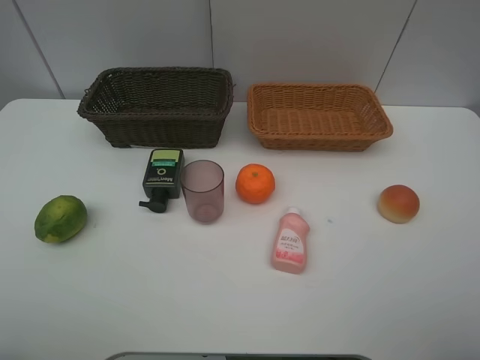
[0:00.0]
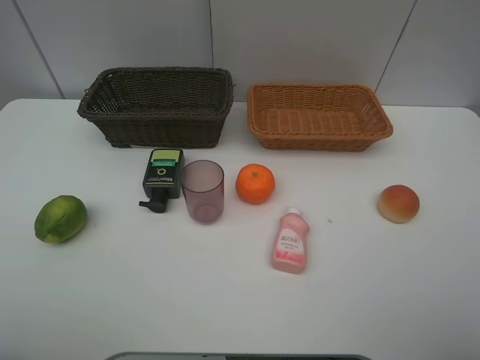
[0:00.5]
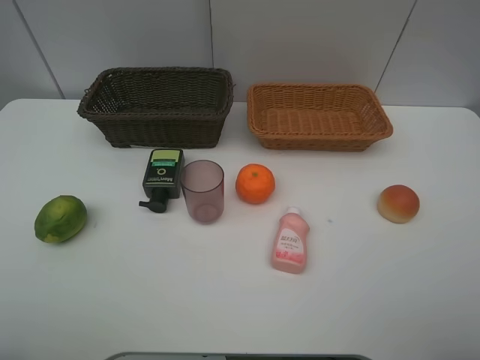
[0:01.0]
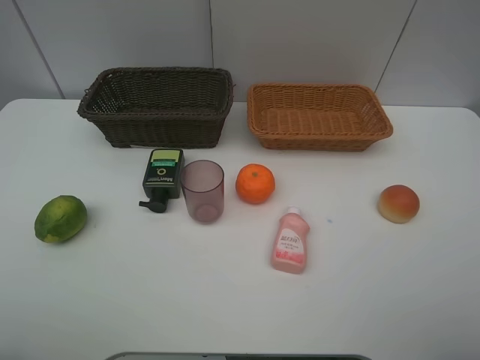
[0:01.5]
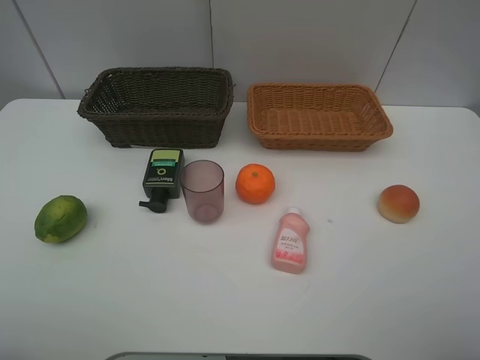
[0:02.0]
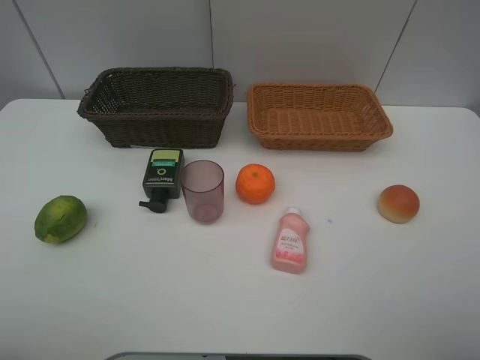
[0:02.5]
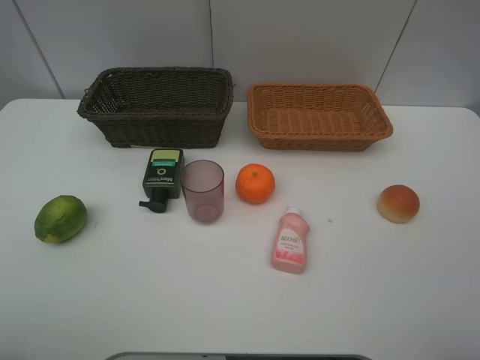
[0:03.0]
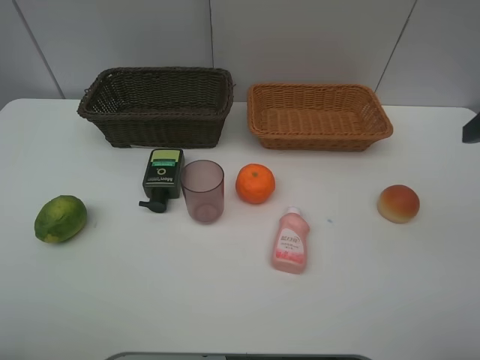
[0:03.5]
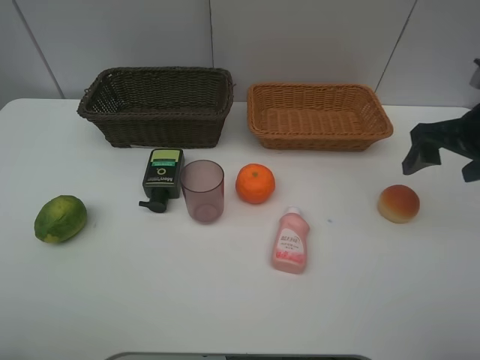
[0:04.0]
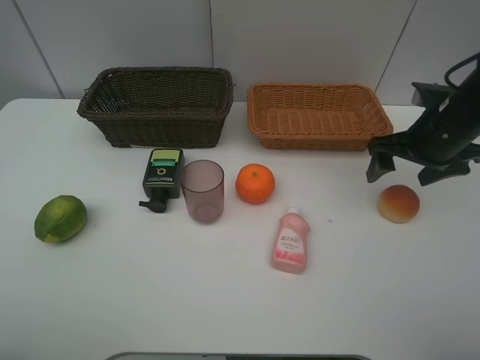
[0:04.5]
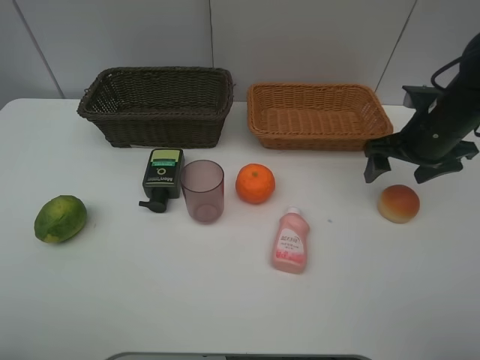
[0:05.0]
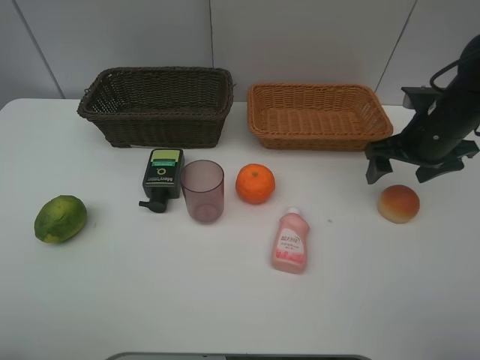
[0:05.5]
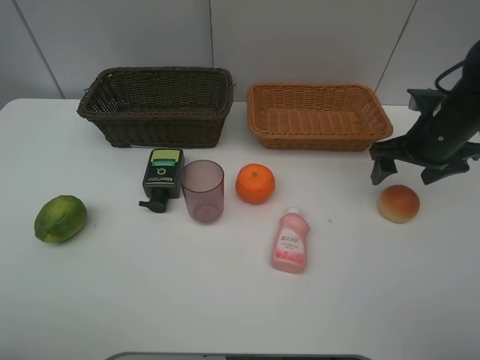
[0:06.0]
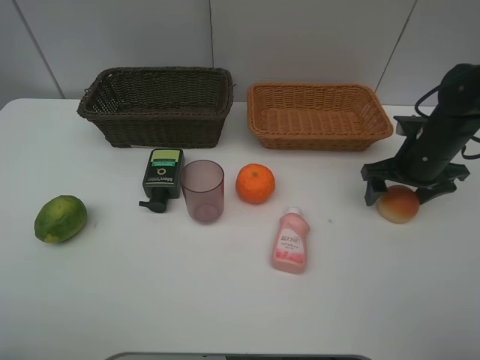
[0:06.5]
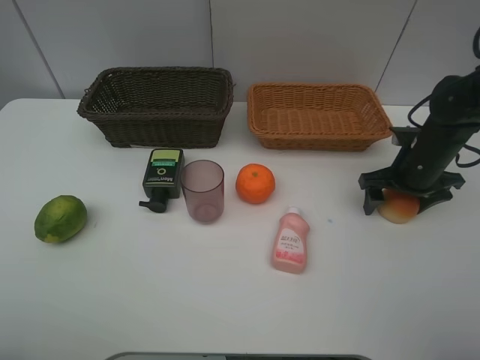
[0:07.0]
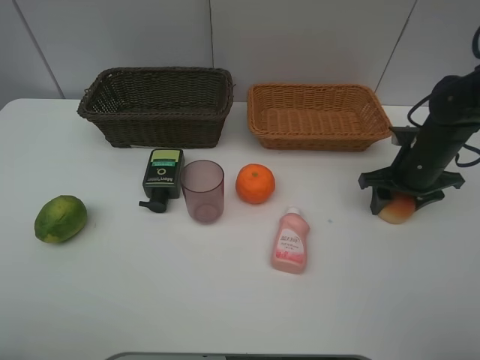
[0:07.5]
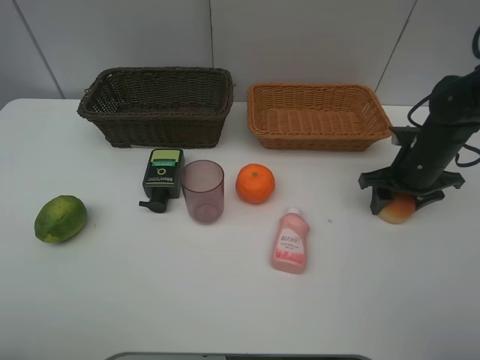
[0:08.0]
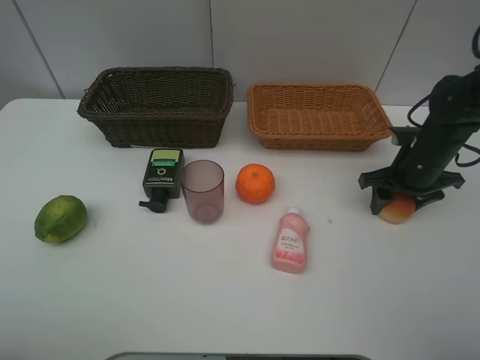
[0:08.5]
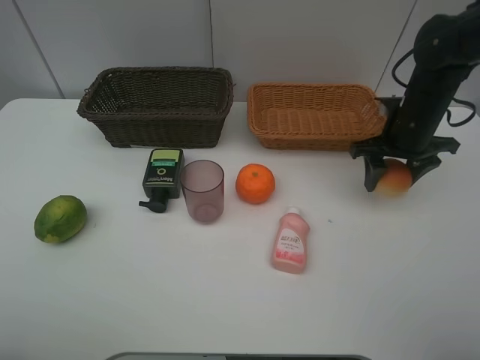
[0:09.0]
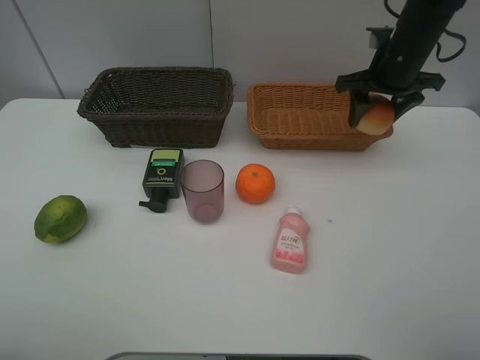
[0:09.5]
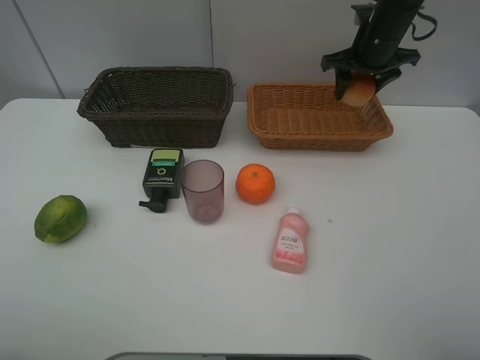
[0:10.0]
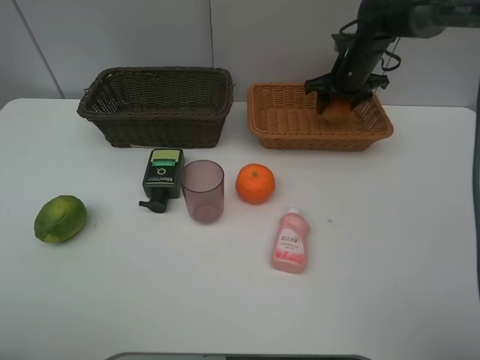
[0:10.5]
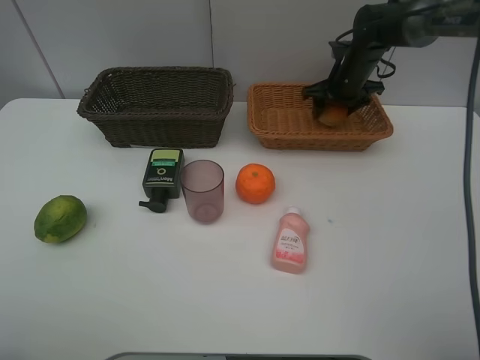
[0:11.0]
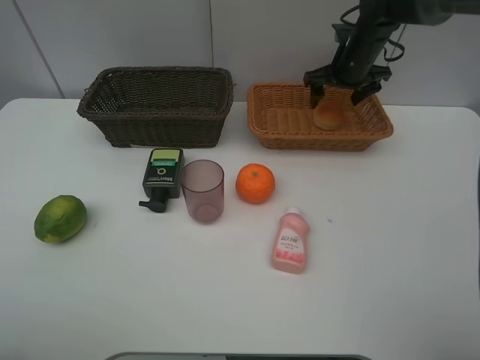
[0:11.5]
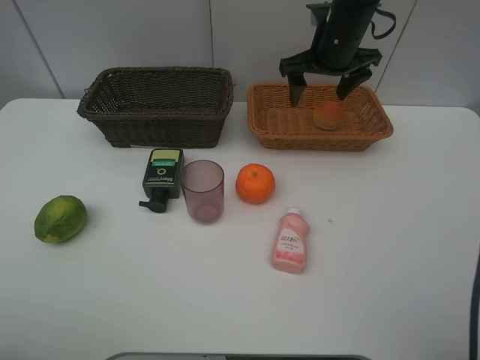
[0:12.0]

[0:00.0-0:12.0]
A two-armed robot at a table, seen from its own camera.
Task of the whole recording: place multiple objects separately in different baskets.
0:00.0 to 0:02.0: Neither gripper changes place.
0:02.0 to 0:04.0: The right gripper goes roughly 25 cm forward.
0:04.0 to 0:06.0: The right gripper is displaced forward and downward by some 10 cm.
0:06.0 to 0:08.0: The right gripper moves downward, approximately 5 cm, and closes its fingers.
0:08.0 to 0:10.0: The right gripper heads forward, upward and to the left, covering some 20 cm.
0:10.0 to 0:12.0: The right gripper goes approximately 10 cm to the left, reaches approximately 10 cm downward, then returns, and opens its fingers.

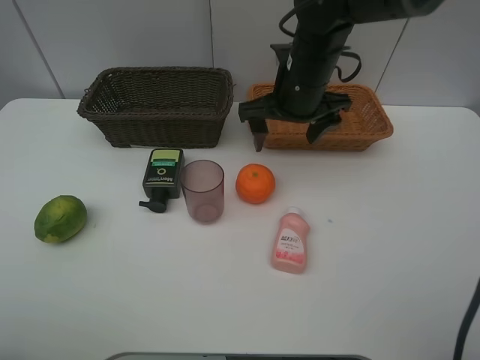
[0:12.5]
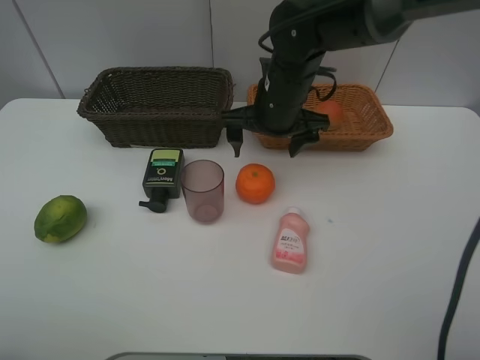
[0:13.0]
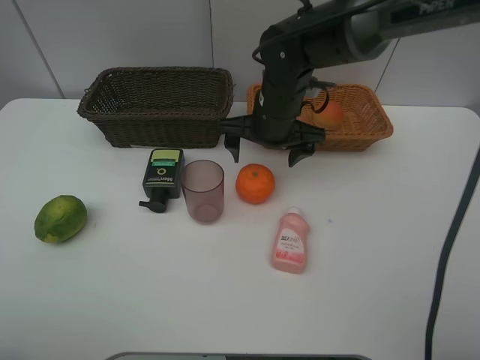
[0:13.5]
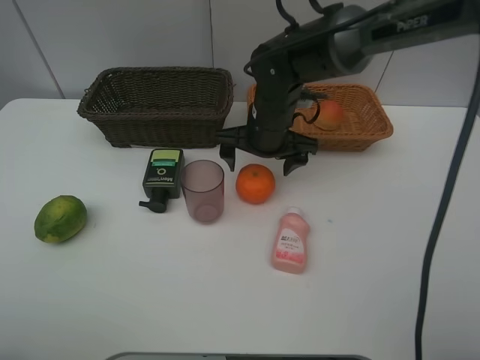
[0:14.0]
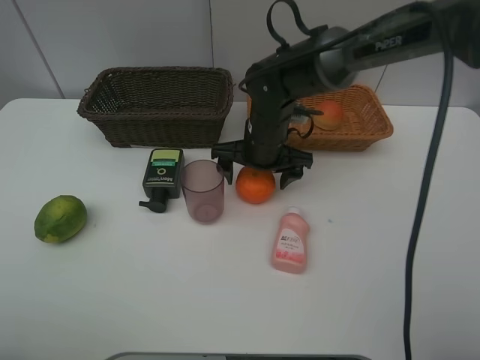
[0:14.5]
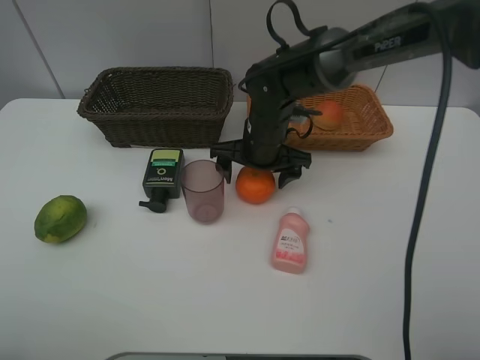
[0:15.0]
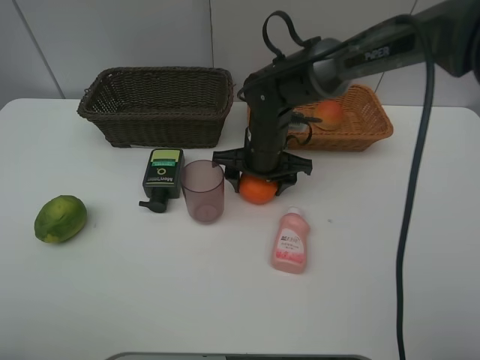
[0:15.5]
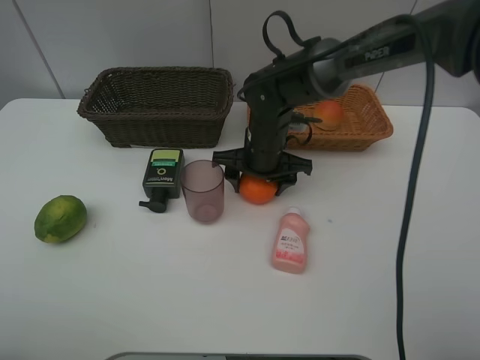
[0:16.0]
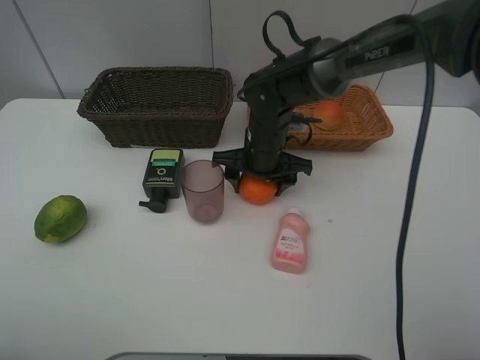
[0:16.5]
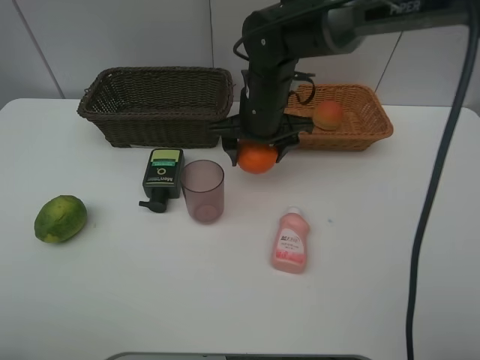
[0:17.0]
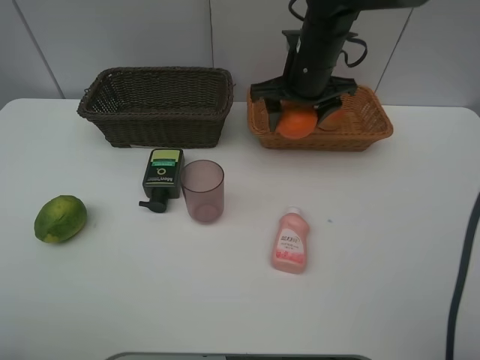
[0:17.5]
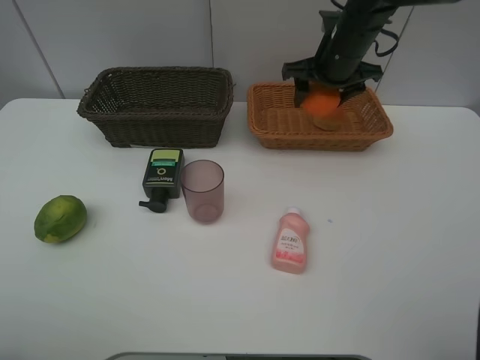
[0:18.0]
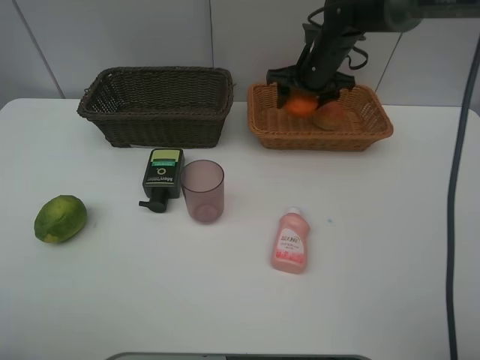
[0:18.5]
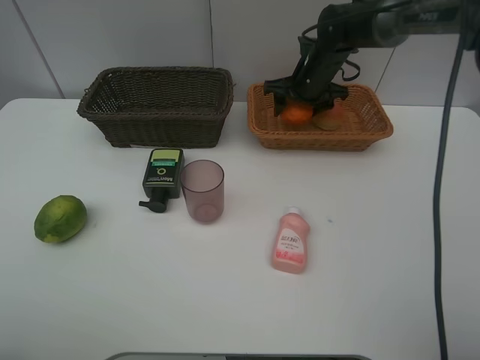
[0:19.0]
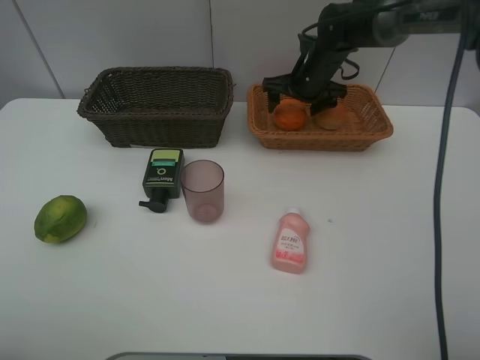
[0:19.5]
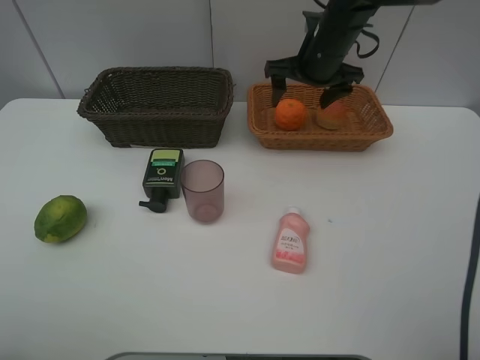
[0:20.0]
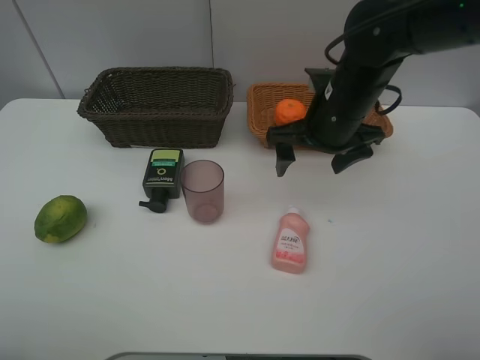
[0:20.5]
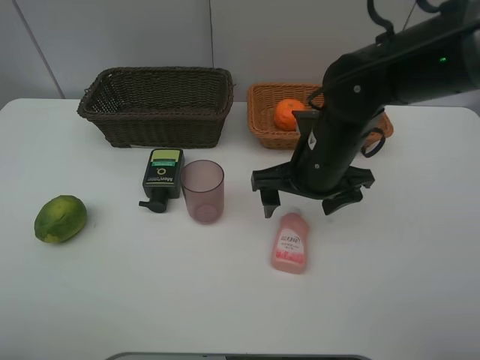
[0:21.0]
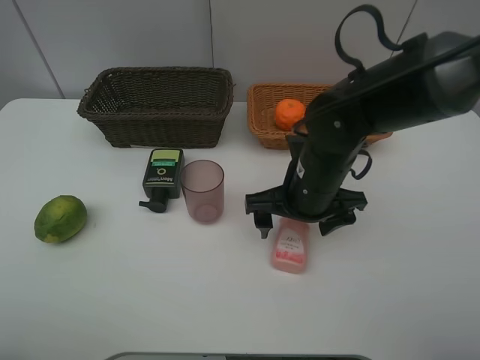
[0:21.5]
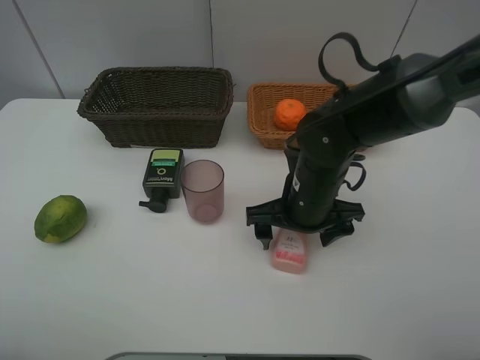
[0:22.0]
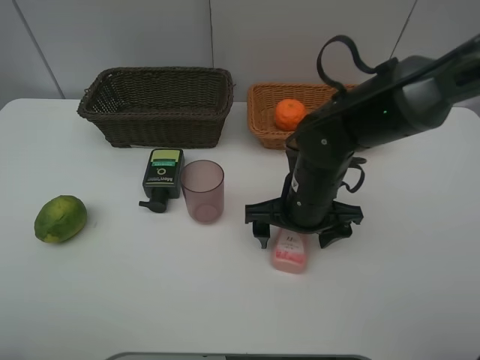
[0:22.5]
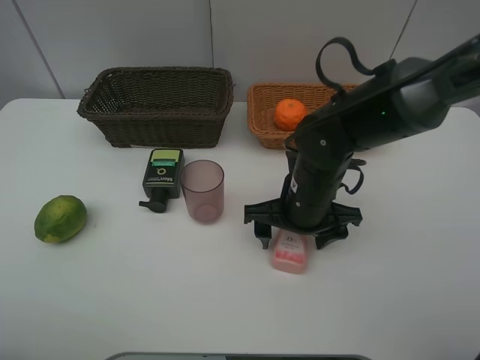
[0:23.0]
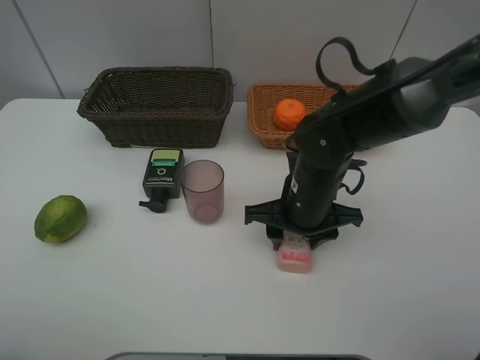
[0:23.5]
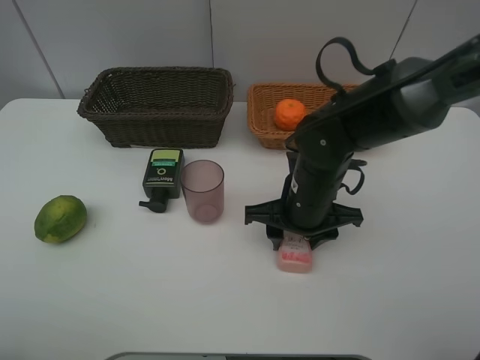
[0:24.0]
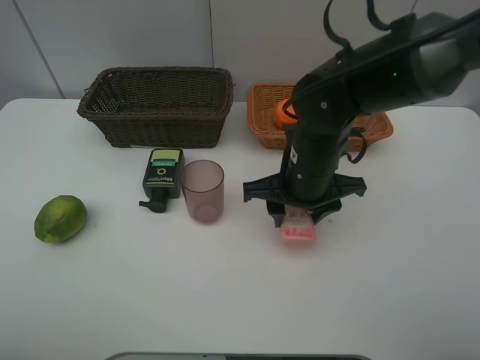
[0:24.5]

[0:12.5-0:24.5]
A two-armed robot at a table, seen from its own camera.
Task of the whole recording: place multiple objects separately in different baskets.
0:12.5 to 0:14.5: The right gripper heads downward, covering about 10 cm.
0:14.5 to 0:16.5: The right gripper closes its fingers.
0:16.5 to 0:18.5: The right gripper shifts approximately 20 cm forward, to the right and upward.
0:18.5 to 0:20.5: The right gripper shifts some 15 cm backward, and opens its fingers.
0:20.5 to 0:22.5: The right gripper is displaced downward and backward by some 10 cm.
0:22.5 to 0:24.5: The right gripper closes up.

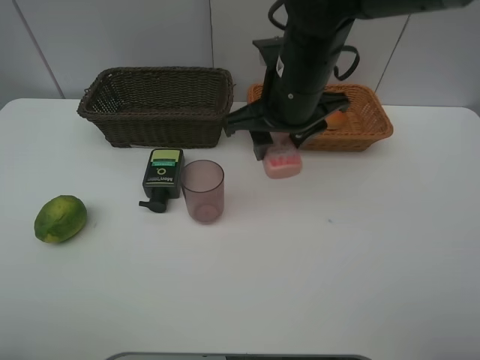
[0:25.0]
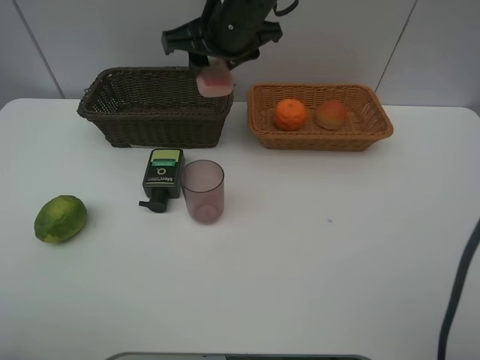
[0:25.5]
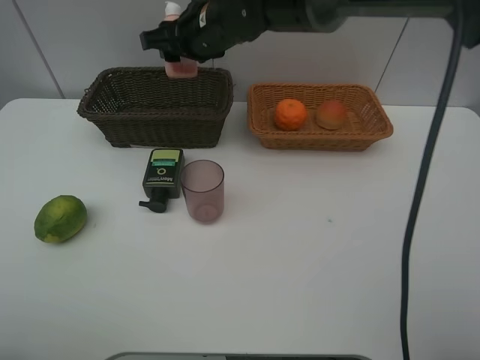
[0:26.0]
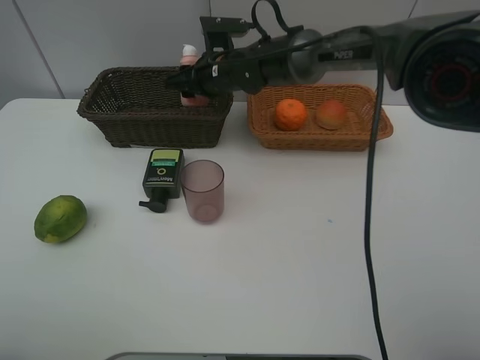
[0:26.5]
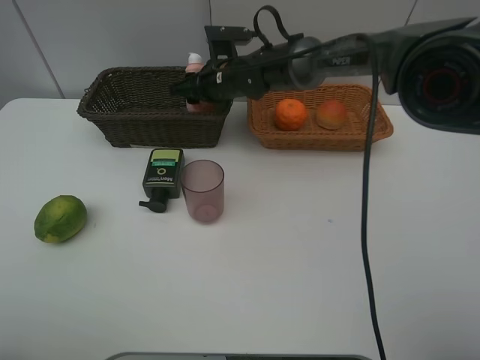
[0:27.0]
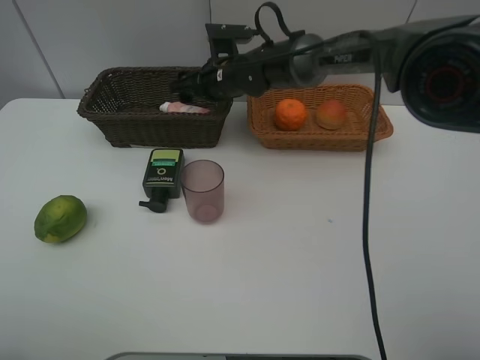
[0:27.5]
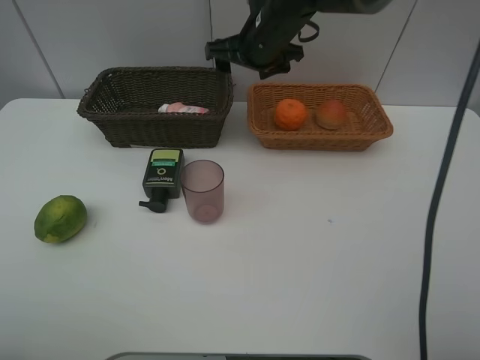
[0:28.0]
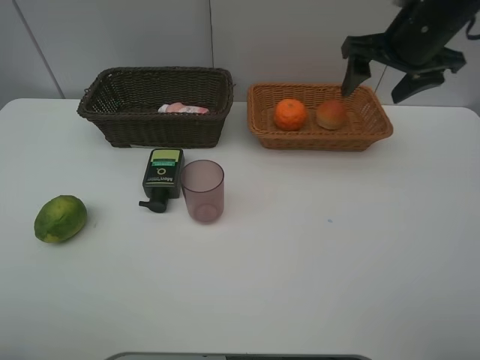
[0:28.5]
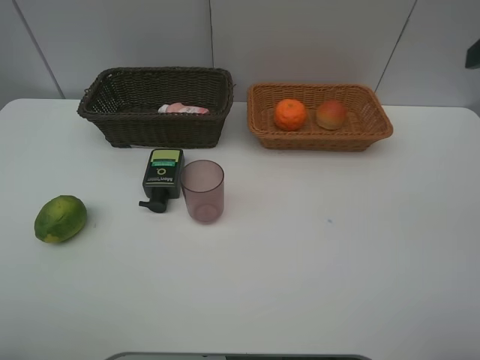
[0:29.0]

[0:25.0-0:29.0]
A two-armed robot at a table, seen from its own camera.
Task of the whole recording: place multiple objects separately in different baskets.
0:25.0 to 0:27.0: The right gripper heads forward, downward and to the left, covering about 20 cm.
0:27.0 to 0:29.0: The right gripper moves to the right, backward and upward, roughly 50 cm, and opens its fingers.
